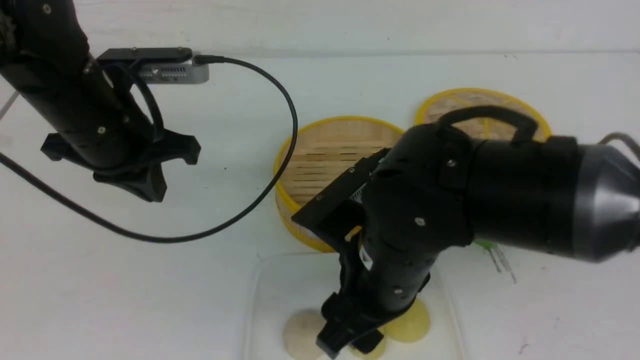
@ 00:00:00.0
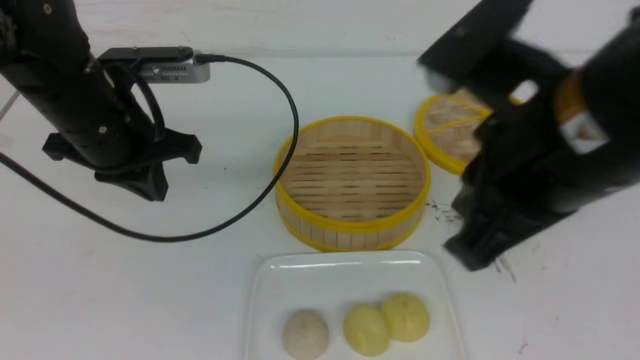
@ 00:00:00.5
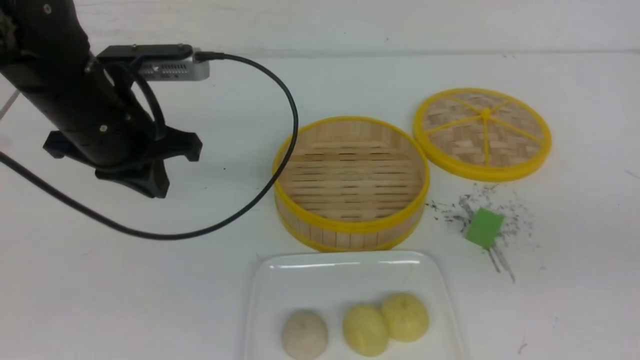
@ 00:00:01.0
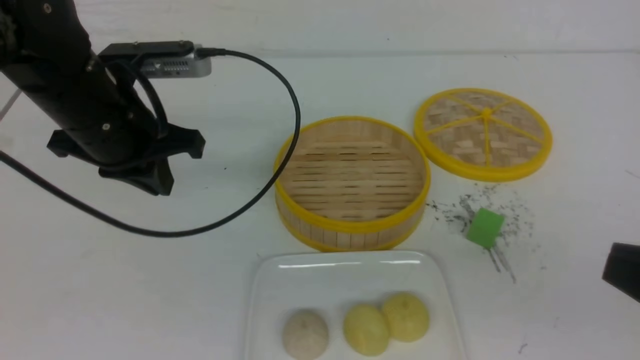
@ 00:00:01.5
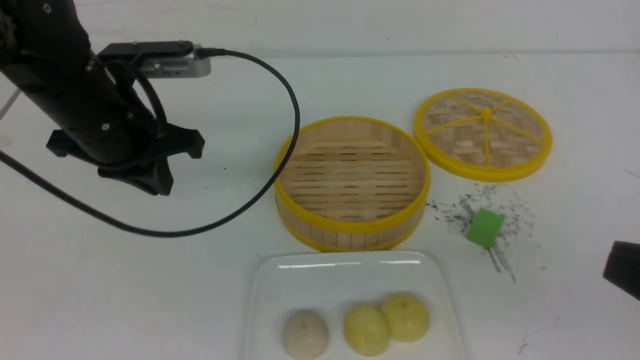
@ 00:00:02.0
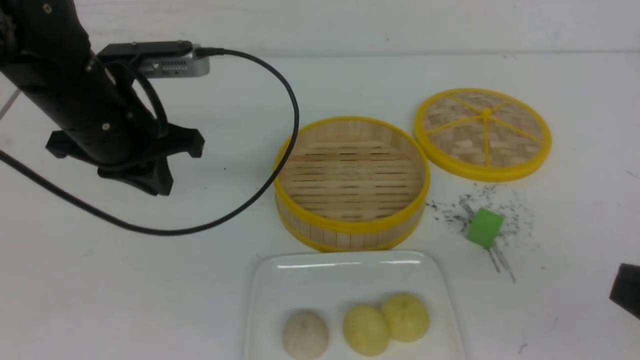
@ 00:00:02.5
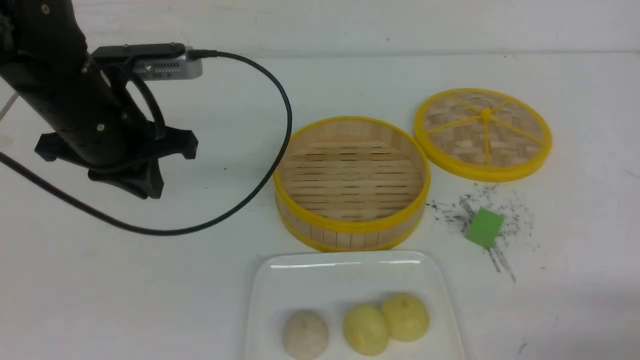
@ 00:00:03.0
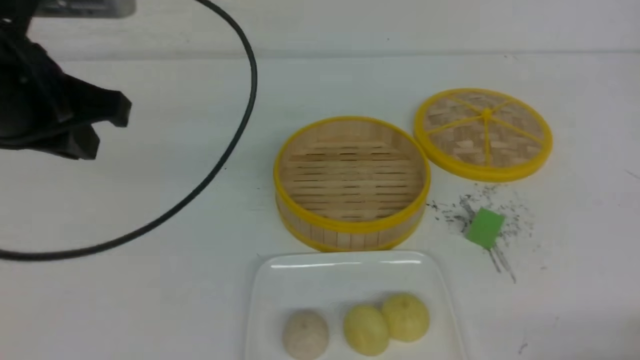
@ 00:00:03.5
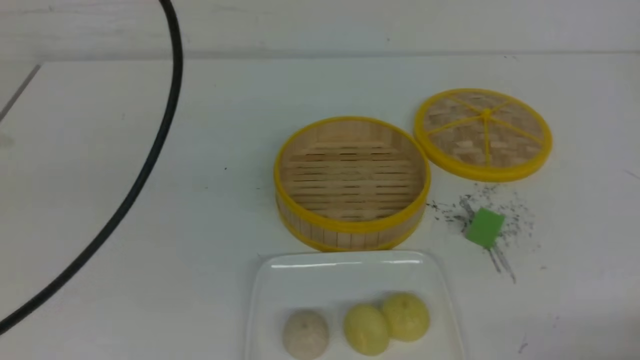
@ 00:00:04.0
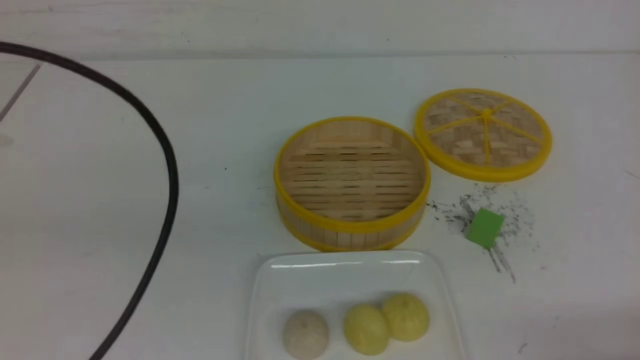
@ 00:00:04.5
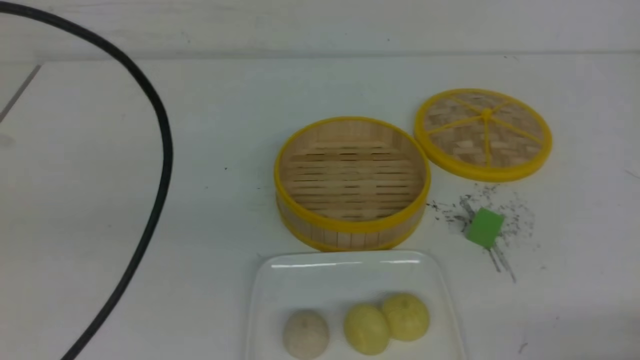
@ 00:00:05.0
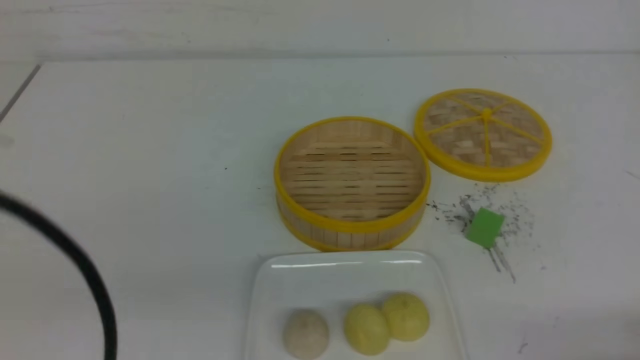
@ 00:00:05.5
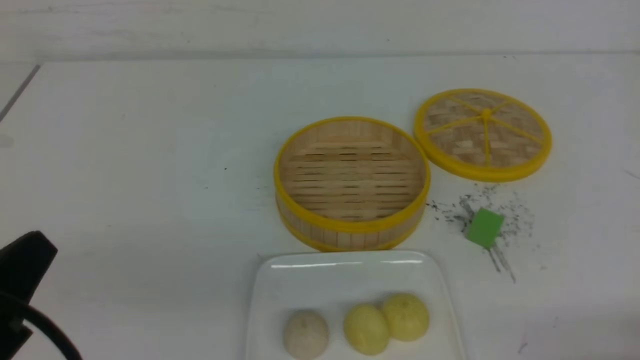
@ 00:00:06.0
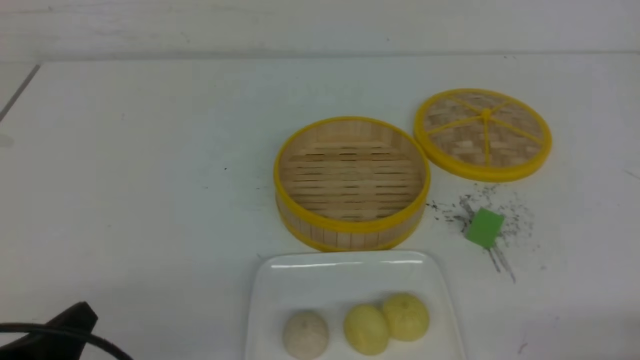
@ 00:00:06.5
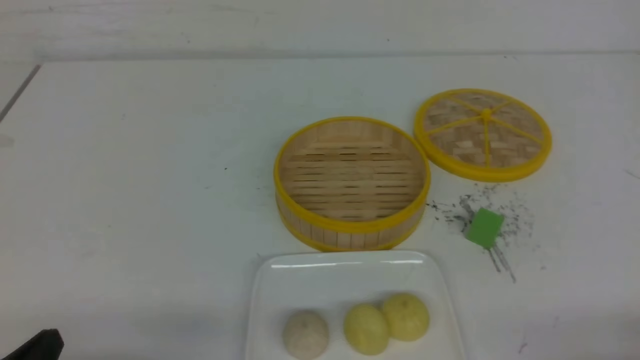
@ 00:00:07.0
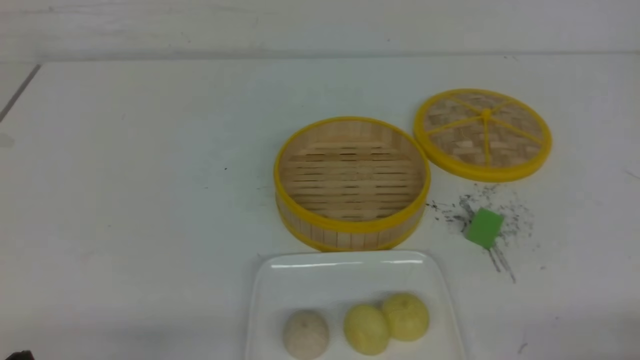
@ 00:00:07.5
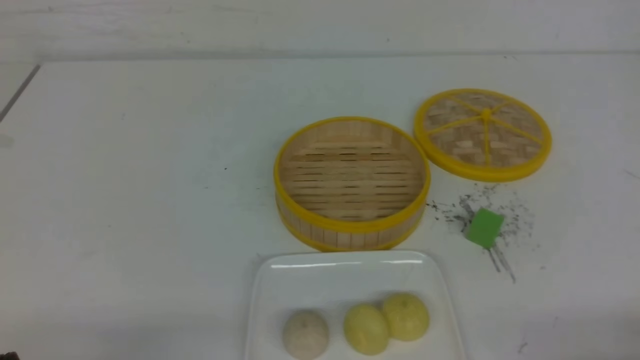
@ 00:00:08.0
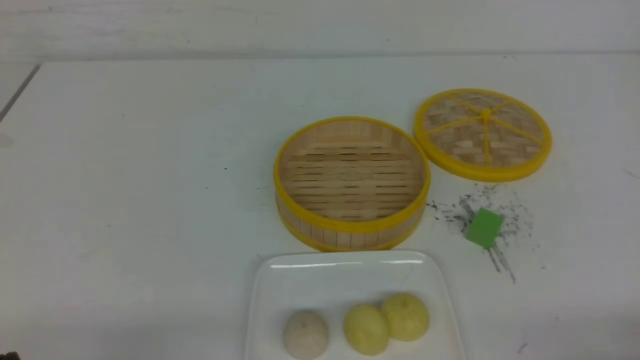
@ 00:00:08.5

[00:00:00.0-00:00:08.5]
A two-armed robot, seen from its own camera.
00:00:00.0 to 00:00:02.0: The right gripper goes approximately 25 cm to the right and backward, and closes.
00:00:02.0 to 00:00:04.0: The left gripper heads backward and upward, covering roughly 20 cm; the right gripper travels downward and to the right by some 15 cm.
00:00:04.0 to 00:00:06.5: The left gripper goes about 25 cm downward.
